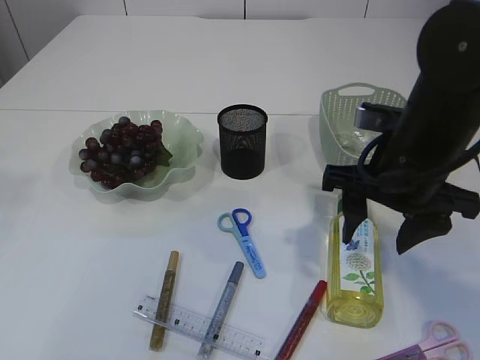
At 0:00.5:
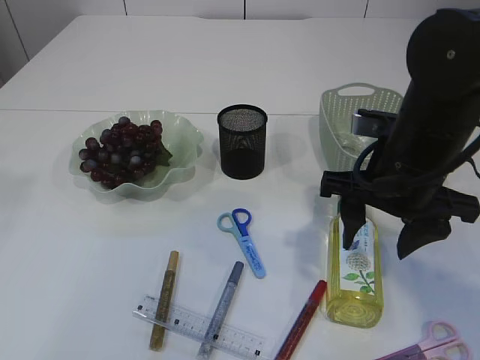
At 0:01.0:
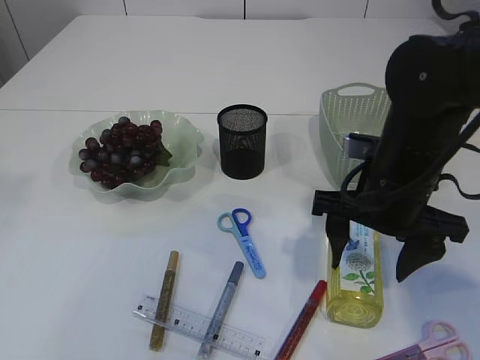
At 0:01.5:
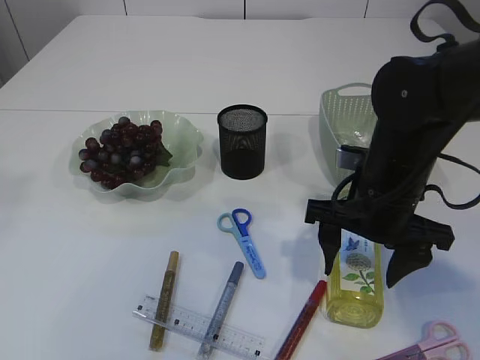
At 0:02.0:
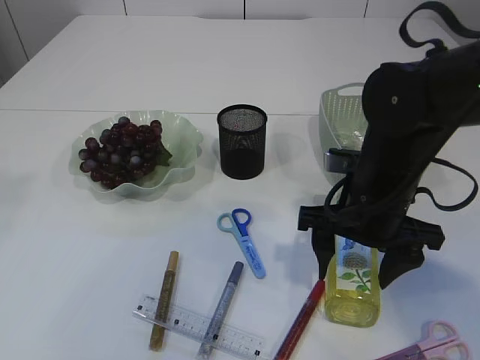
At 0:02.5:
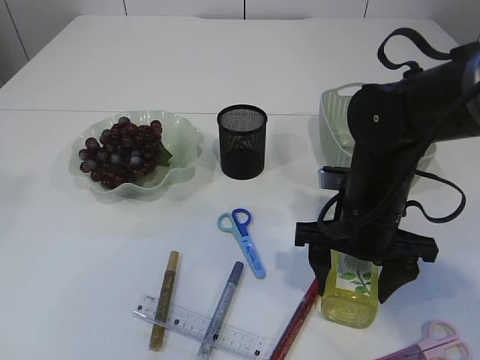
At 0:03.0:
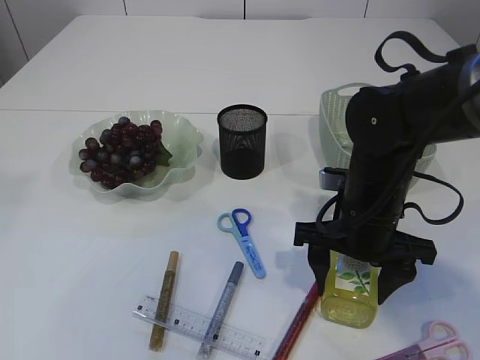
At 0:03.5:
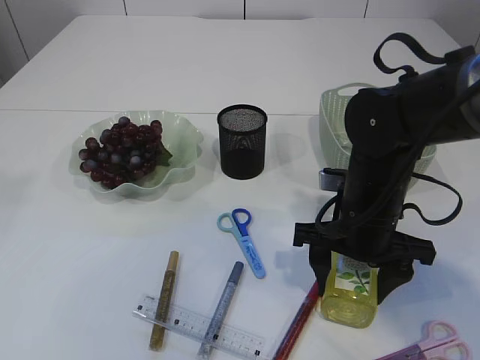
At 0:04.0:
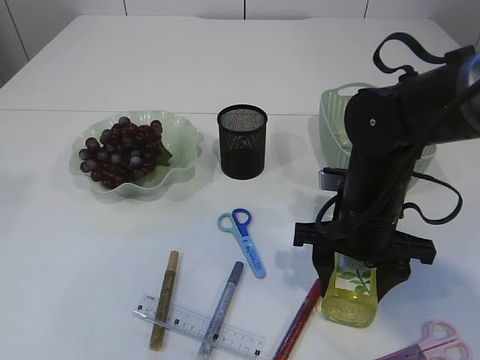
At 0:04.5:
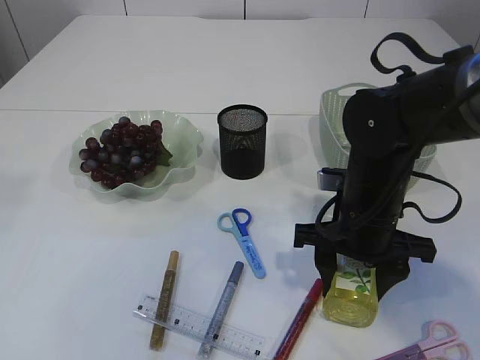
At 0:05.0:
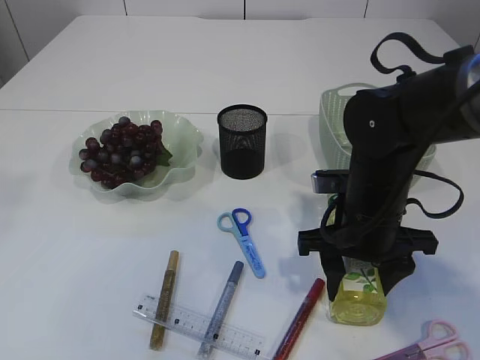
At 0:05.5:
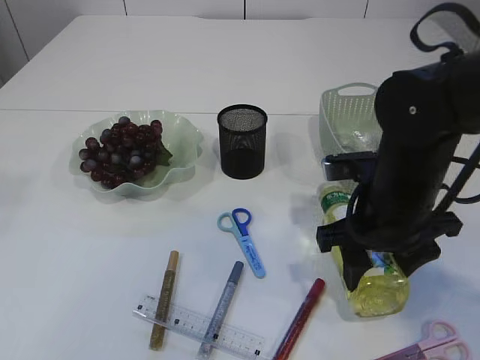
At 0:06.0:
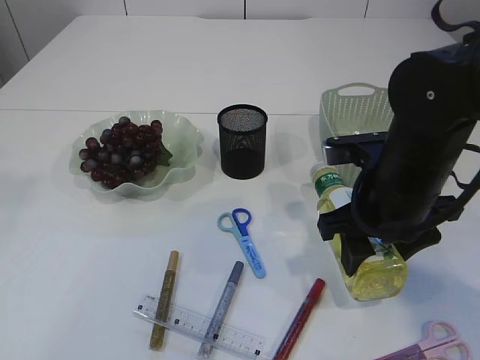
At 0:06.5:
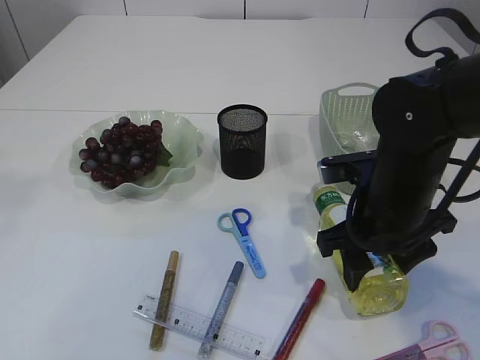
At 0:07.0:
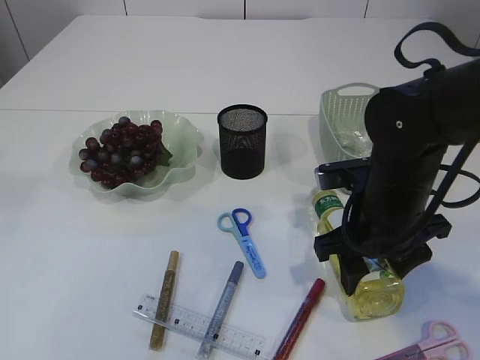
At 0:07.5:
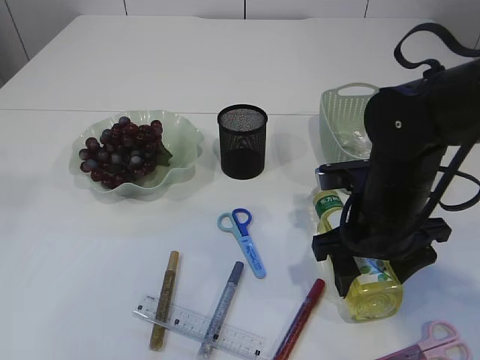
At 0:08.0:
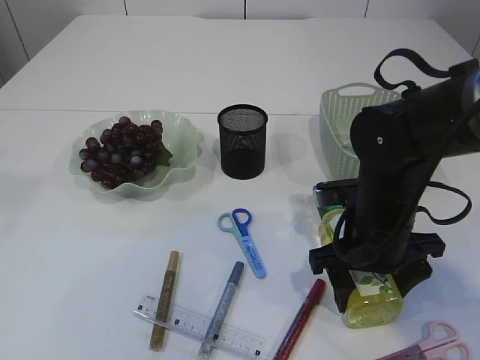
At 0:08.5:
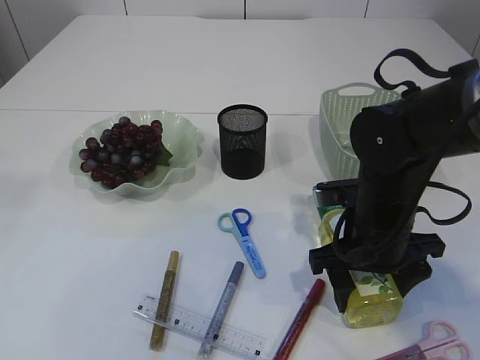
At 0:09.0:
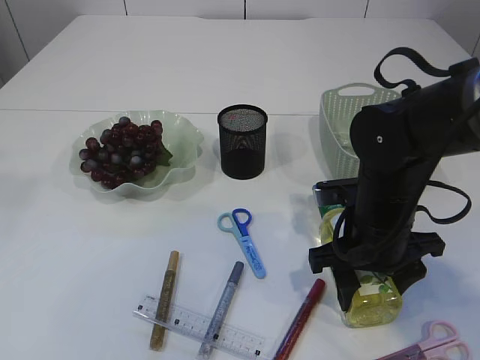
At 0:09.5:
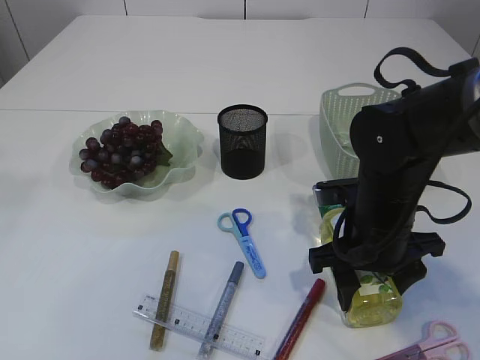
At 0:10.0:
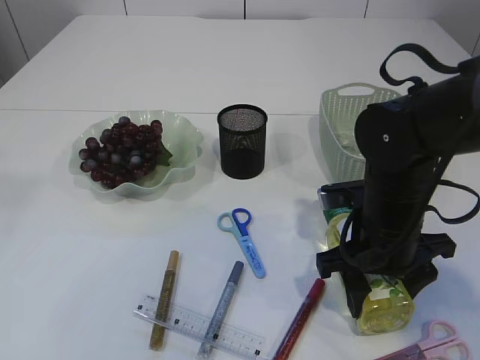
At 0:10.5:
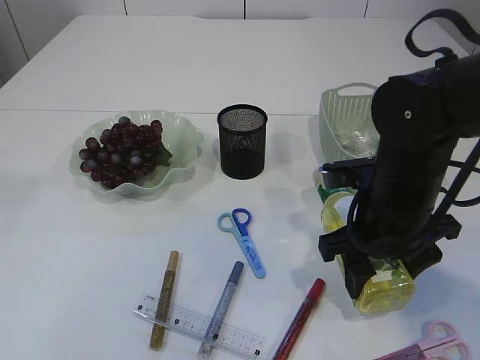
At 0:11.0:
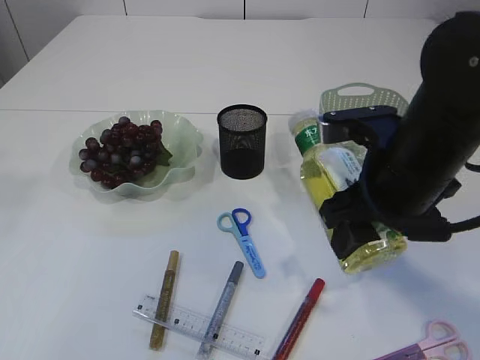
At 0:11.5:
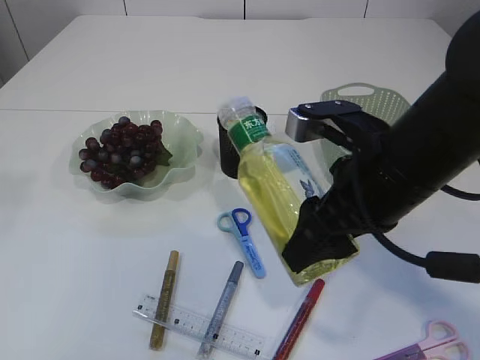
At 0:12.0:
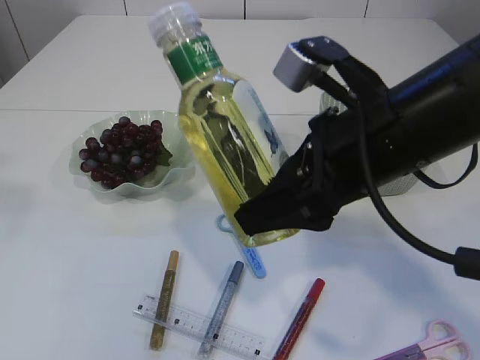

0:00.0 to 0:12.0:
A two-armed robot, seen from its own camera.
Step, 0:00.0 to 0:11.0: Pick up the bottle with the right arm.
0:00.0 to 0:02.0: The right gripper heads downward, covering approximately 5 cm.
0:02.0 to 0:04.0: The grippers move only a little.
0:04.0 to 0:06.0: The right gripper heads upward, covering approximately 5 cm.
0:06.0 to 0:08.0: The right gripper travels downward by some 5 cm.
0:08.0 to 0:10.0: The two grippers keep their place.
0:10.0 to 0:12.0: The right gripper moves upward, about 15 cm.

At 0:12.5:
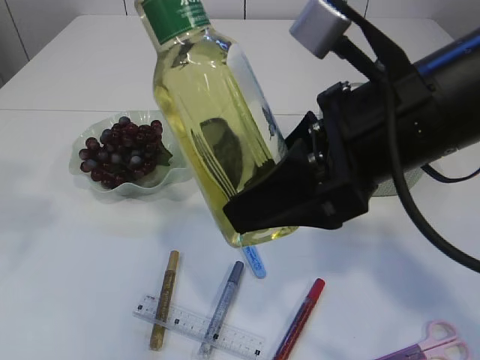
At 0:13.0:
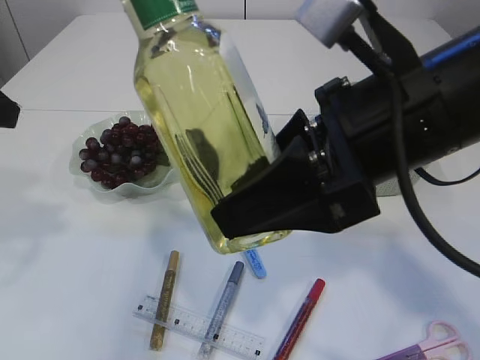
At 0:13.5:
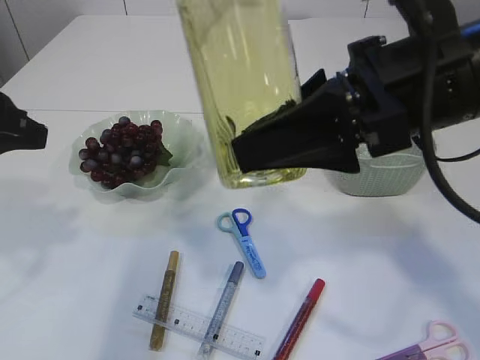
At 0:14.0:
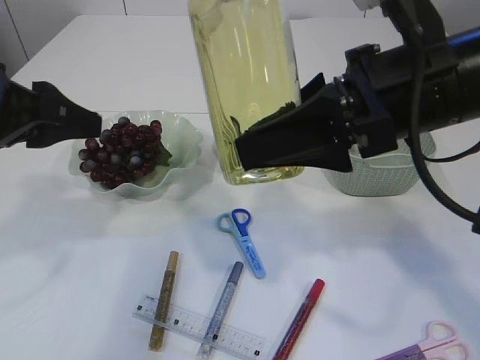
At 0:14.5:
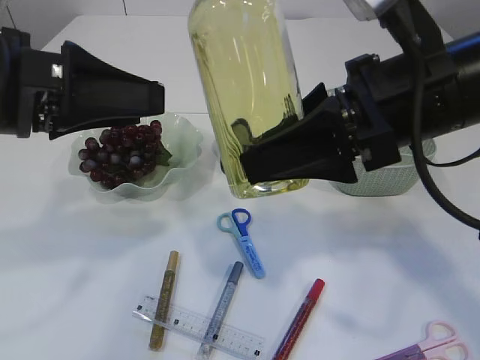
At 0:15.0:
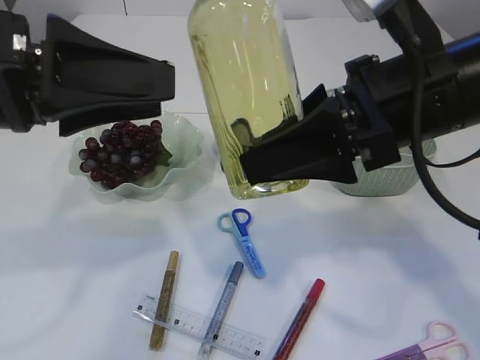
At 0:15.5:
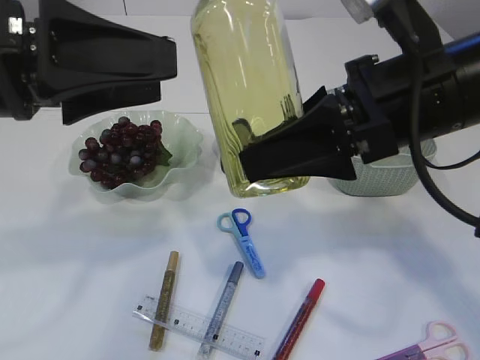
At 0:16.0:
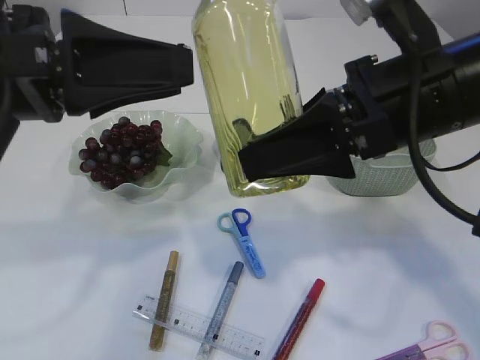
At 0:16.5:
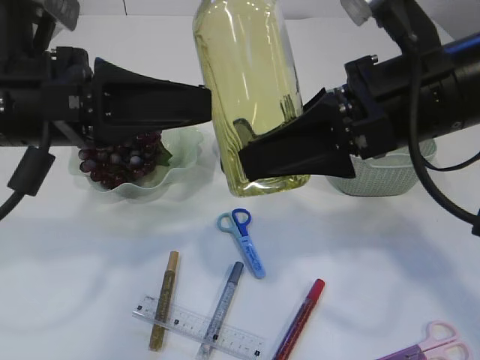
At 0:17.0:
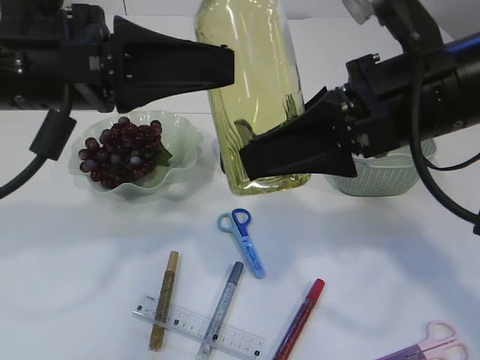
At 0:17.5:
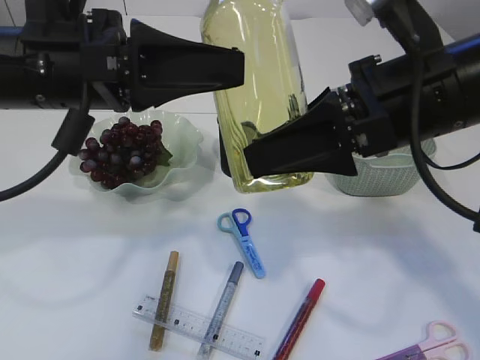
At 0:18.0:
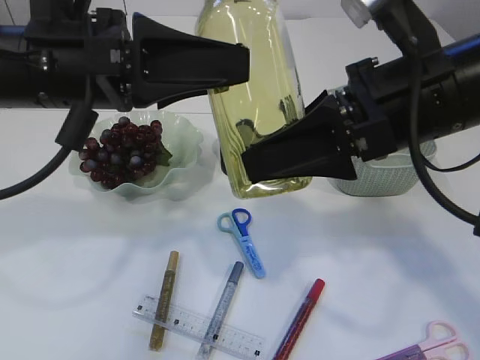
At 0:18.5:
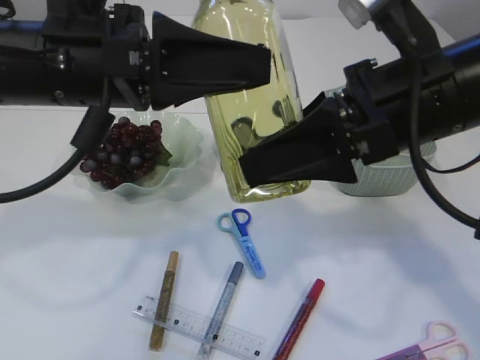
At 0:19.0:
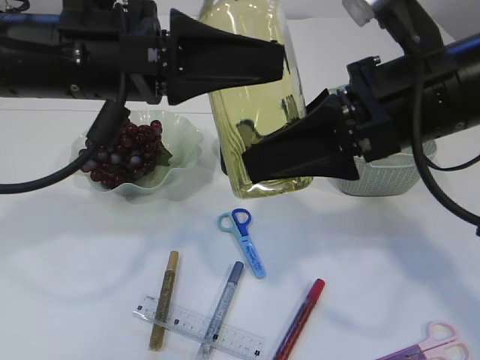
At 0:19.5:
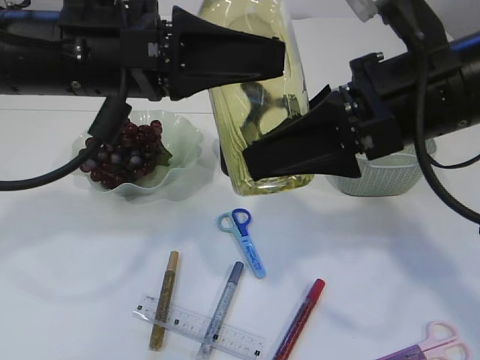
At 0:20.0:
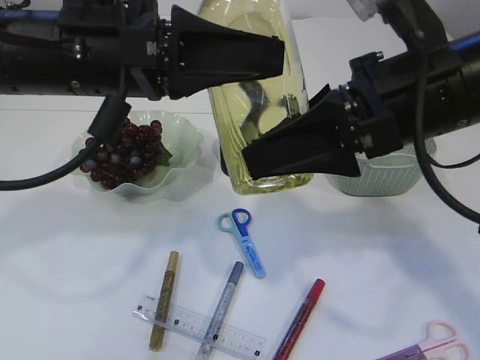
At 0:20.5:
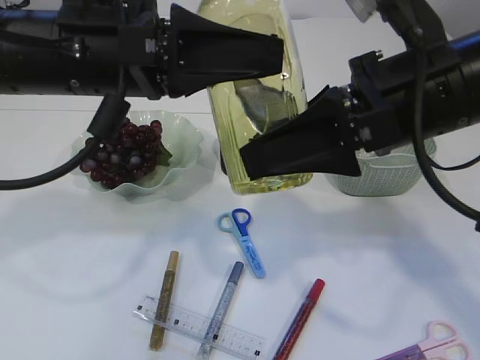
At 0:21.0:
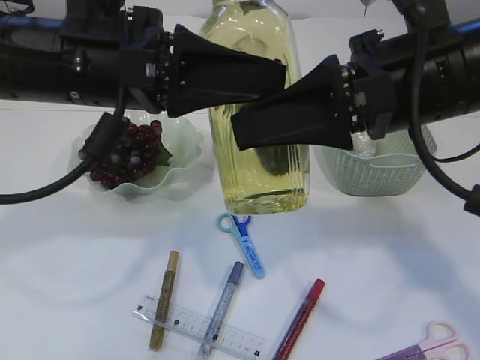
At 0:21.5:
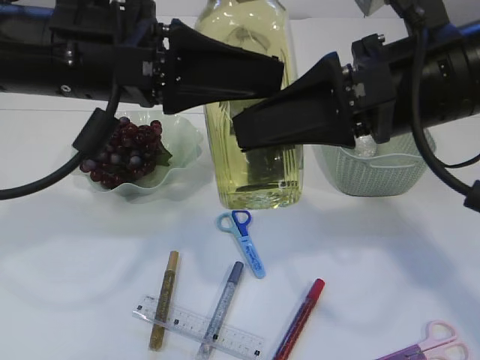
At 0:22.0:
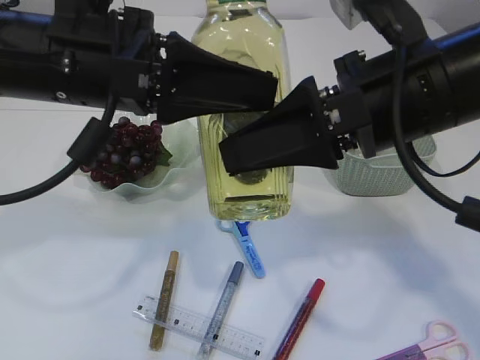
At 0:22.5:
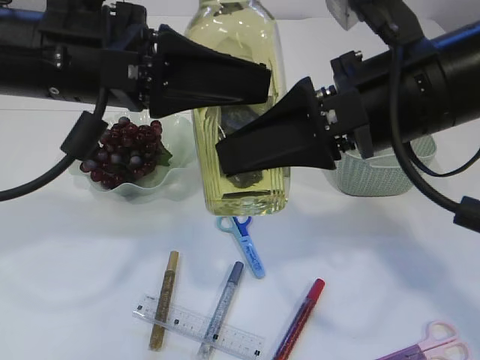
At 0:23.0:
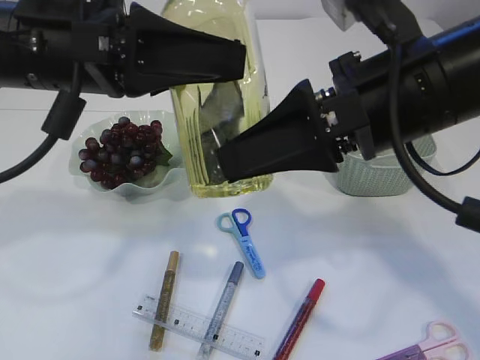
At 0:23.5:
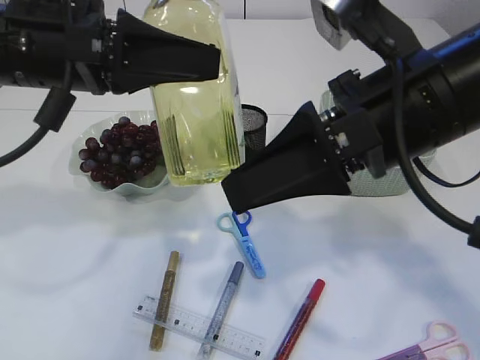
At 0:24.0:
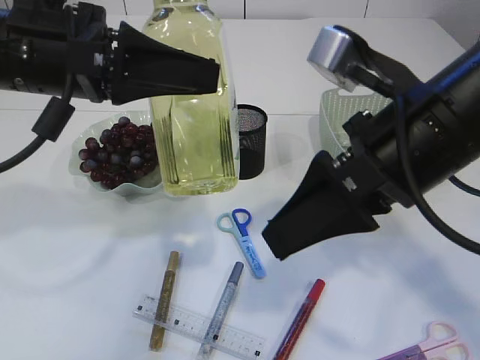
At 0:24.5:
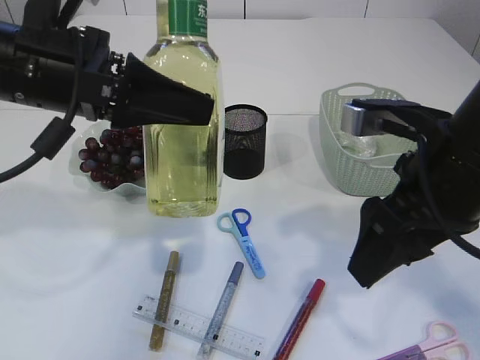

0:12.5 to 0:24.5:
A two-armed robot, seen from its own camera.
Step, 0:12.5 to 0:24.0: transfer the bottle to the left arm.
0:12.5 to 0:14.5: The left gripper moves downward and to the right, about 10 cm.
0:16.5 to 0:18.5: The left gripper moves approximately 5 cm.
0:18.5 to 0:20.5: The two grippers keep their place.
0:22.5 to 0:24.5: The right gripper changes place by some 5 cm.

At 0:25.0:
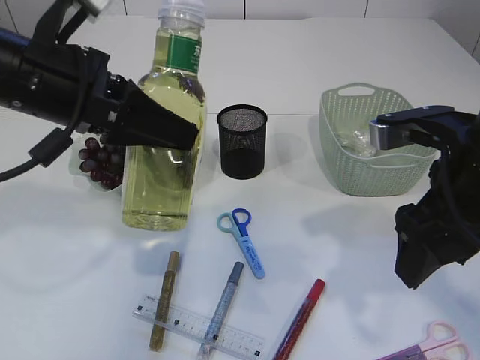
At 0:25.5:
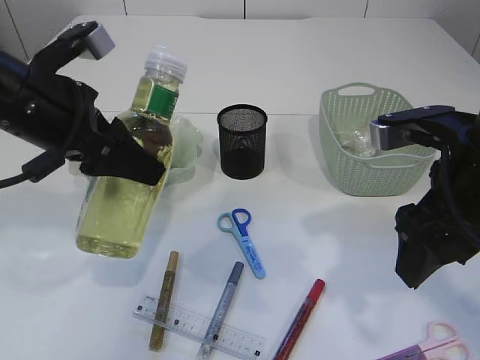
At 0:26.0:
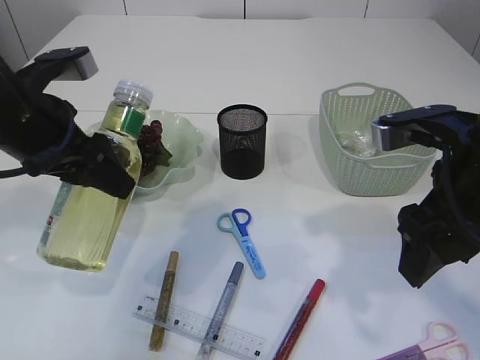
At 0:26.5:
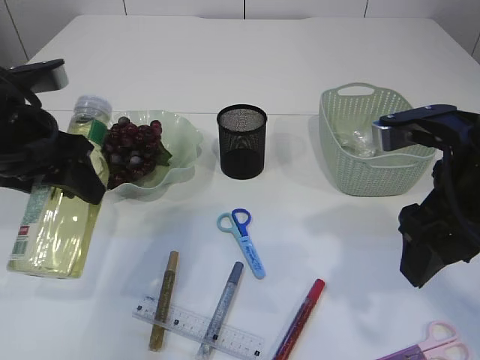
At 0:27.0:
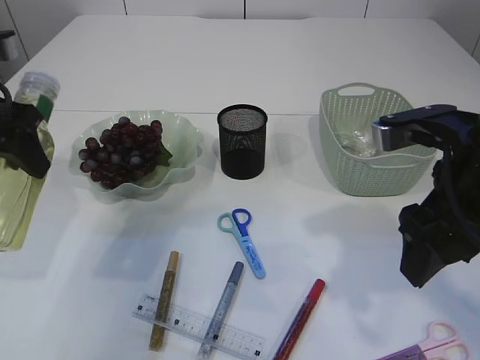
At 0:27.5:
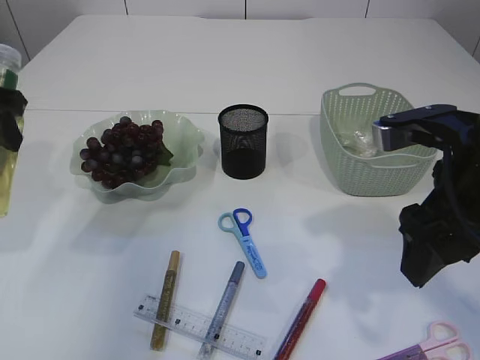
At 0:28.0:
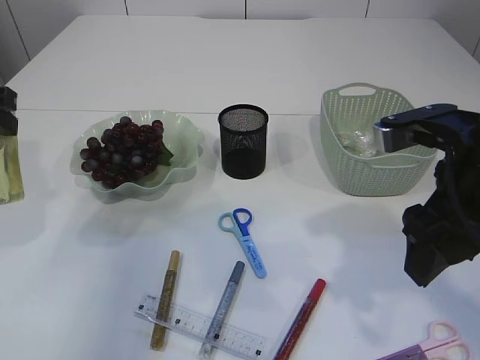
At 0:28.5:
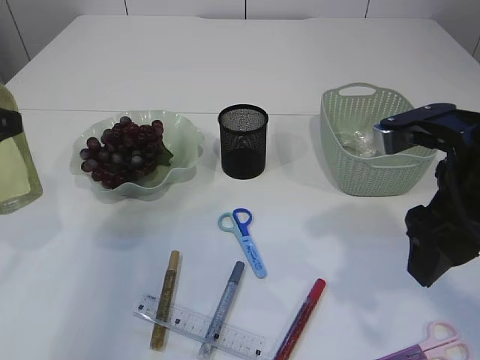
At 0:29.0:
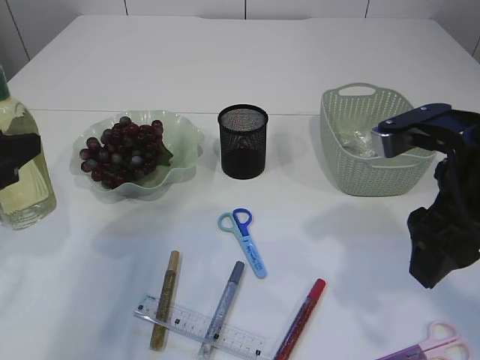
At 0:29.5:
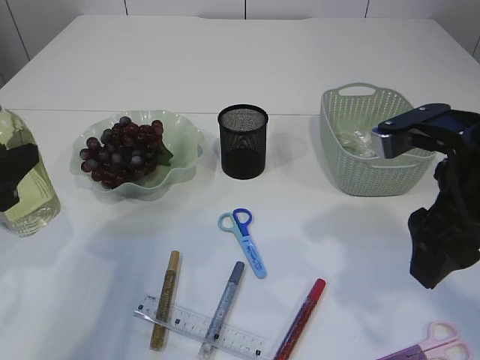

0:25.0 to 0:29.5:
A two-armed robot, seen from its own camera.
0:25.0 to 0:27.0: The left gripper is displaced to the left by approximately 10 cm.
0:27.0 to 0:29.5: The left gripper goes roughly 10 cm backward and downward.
